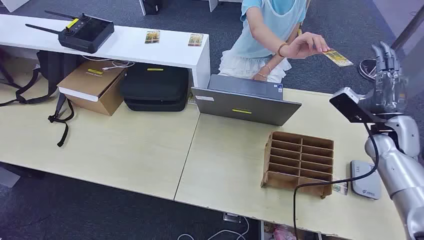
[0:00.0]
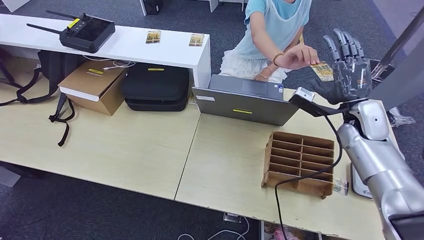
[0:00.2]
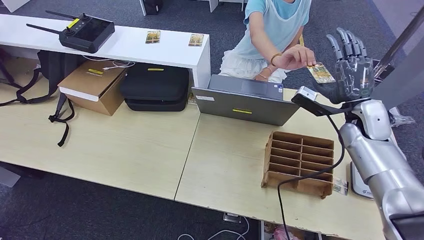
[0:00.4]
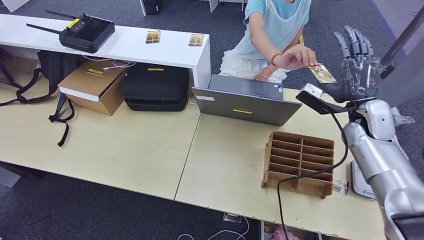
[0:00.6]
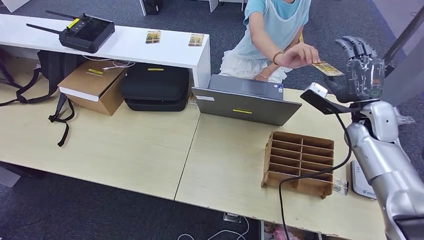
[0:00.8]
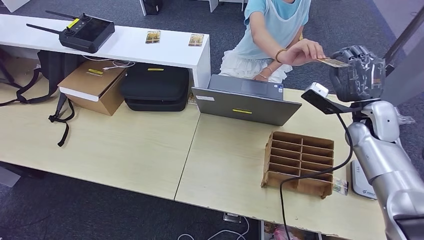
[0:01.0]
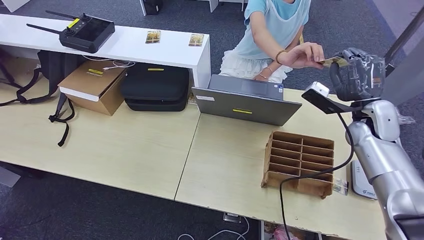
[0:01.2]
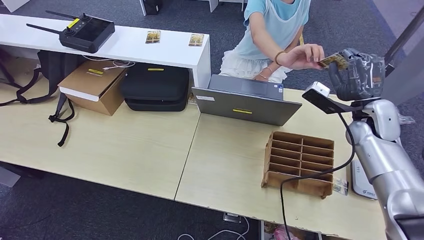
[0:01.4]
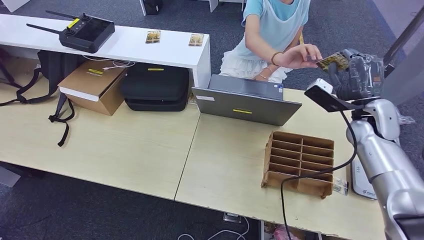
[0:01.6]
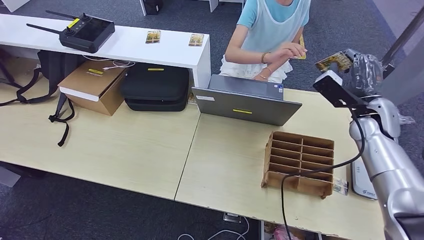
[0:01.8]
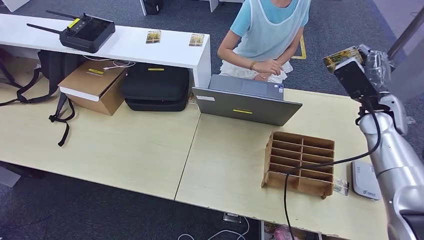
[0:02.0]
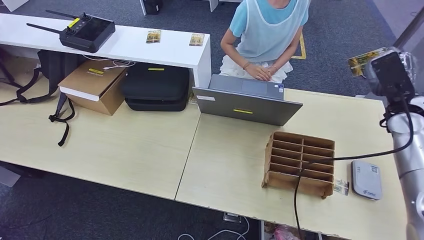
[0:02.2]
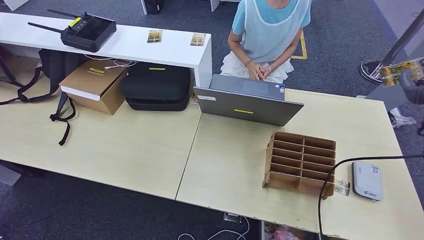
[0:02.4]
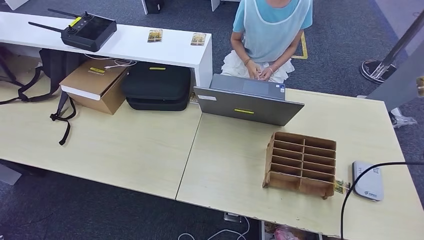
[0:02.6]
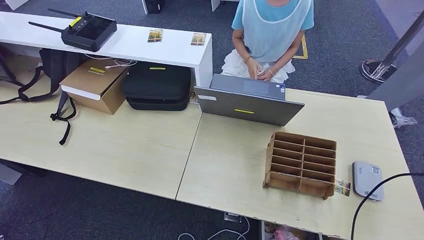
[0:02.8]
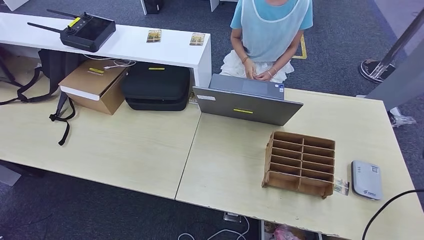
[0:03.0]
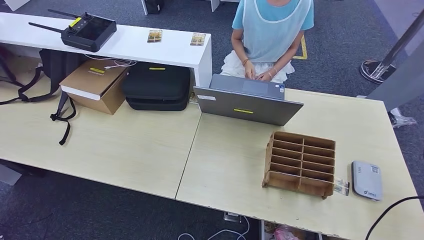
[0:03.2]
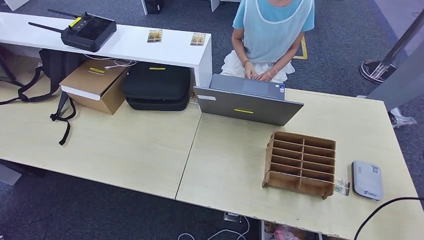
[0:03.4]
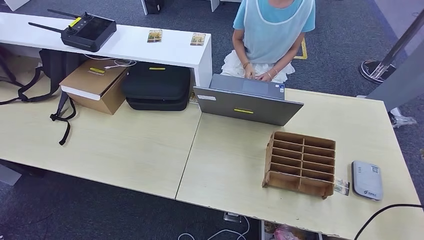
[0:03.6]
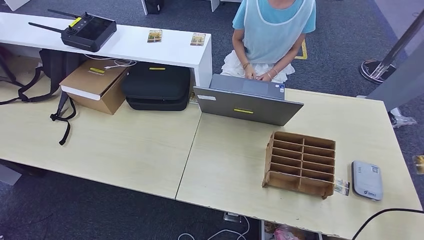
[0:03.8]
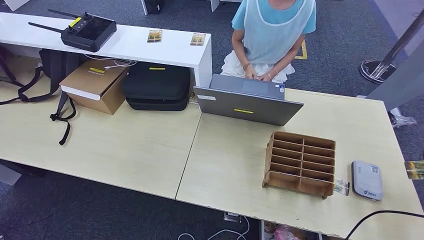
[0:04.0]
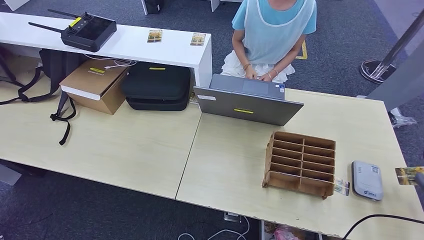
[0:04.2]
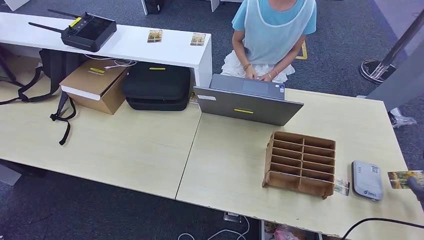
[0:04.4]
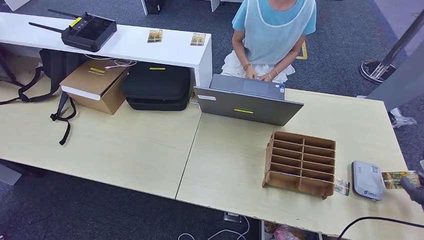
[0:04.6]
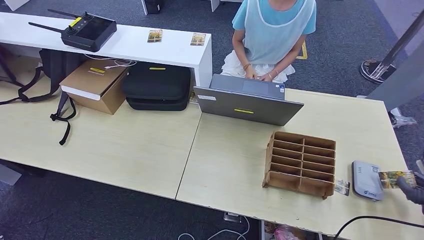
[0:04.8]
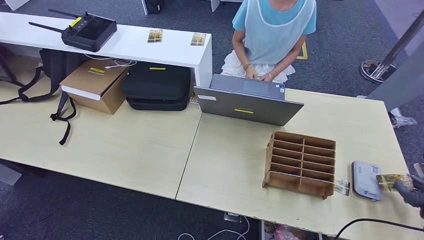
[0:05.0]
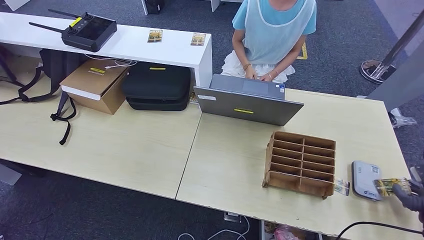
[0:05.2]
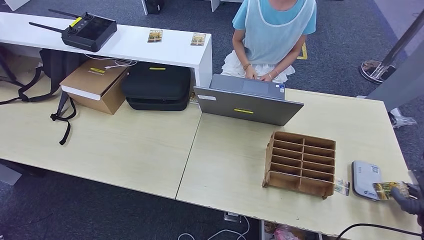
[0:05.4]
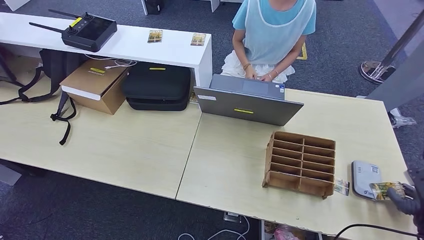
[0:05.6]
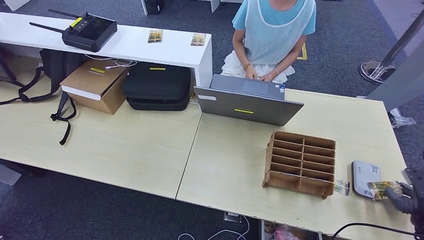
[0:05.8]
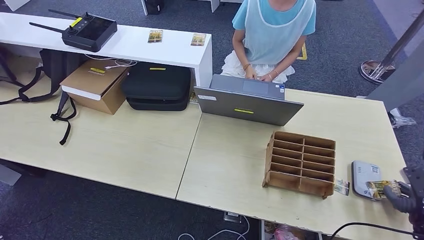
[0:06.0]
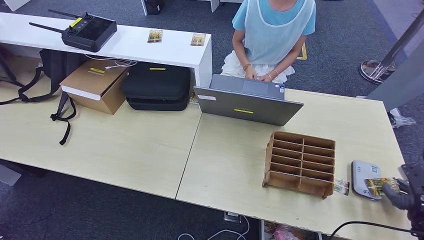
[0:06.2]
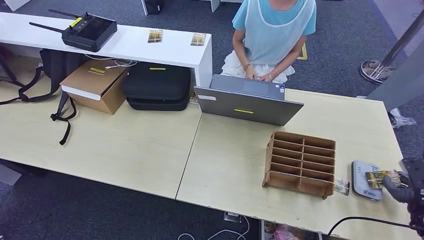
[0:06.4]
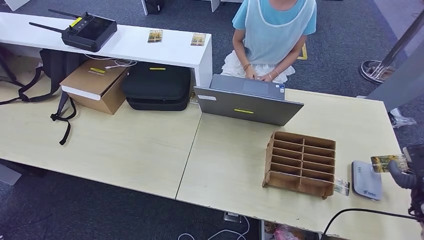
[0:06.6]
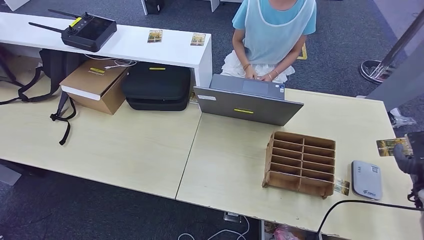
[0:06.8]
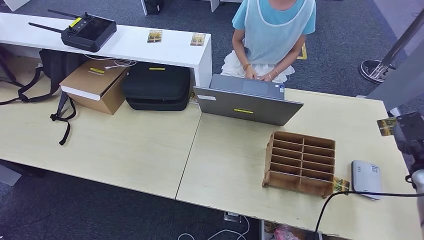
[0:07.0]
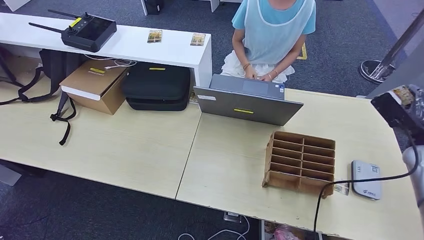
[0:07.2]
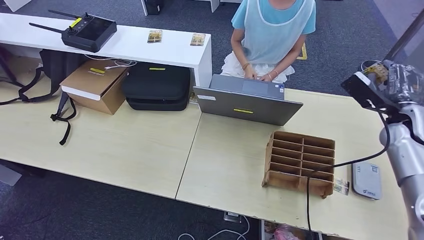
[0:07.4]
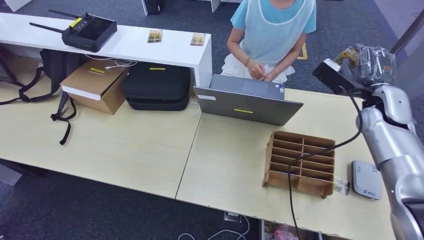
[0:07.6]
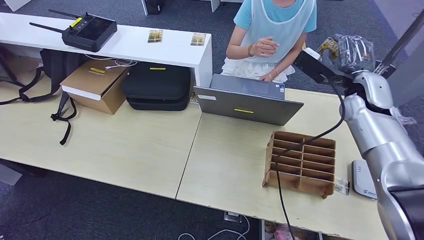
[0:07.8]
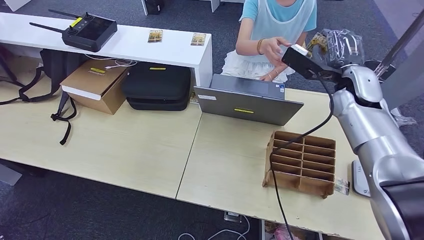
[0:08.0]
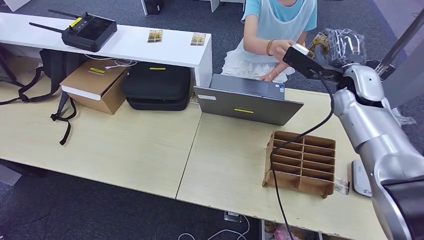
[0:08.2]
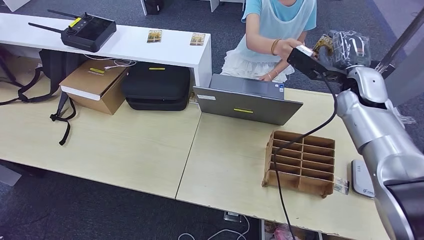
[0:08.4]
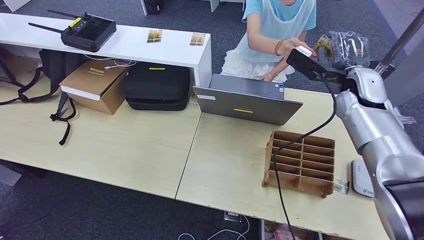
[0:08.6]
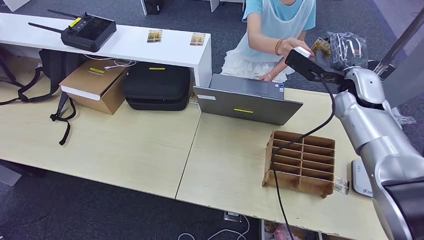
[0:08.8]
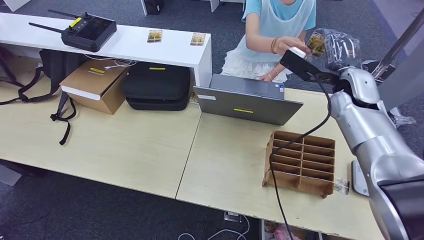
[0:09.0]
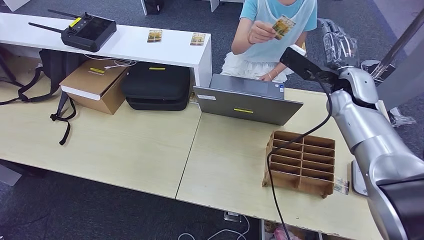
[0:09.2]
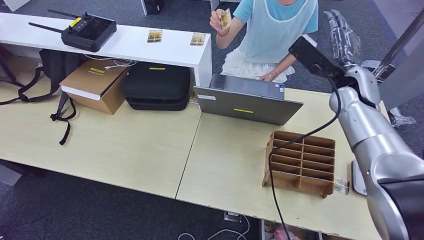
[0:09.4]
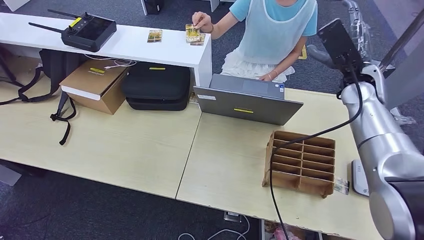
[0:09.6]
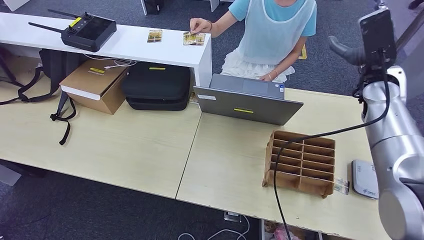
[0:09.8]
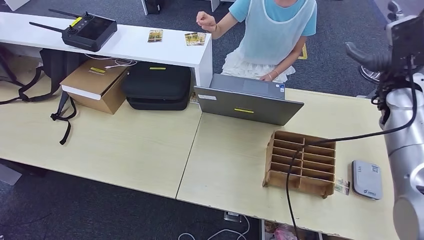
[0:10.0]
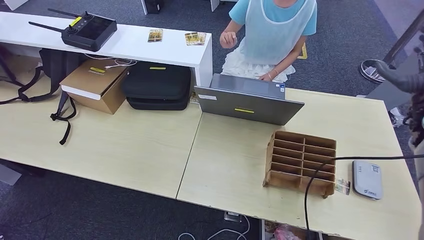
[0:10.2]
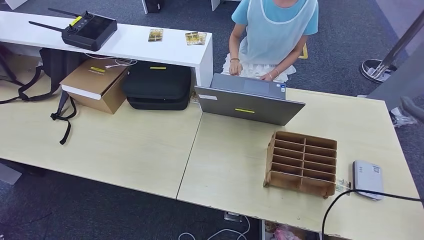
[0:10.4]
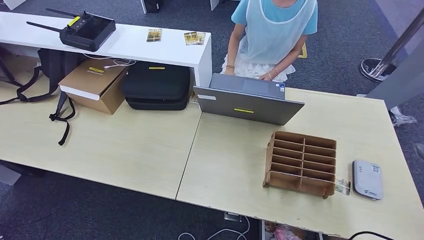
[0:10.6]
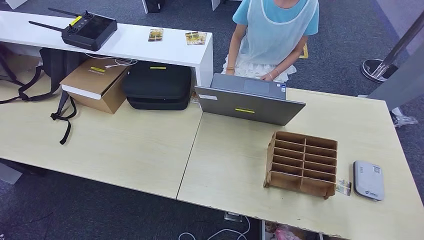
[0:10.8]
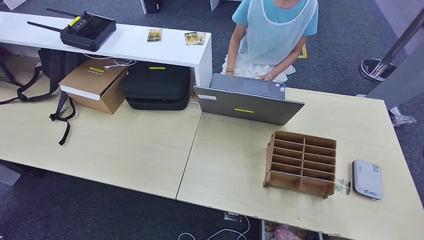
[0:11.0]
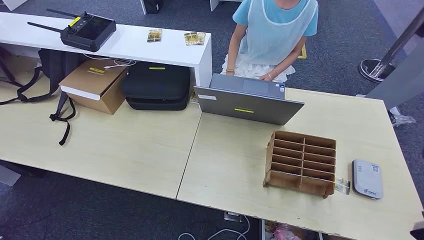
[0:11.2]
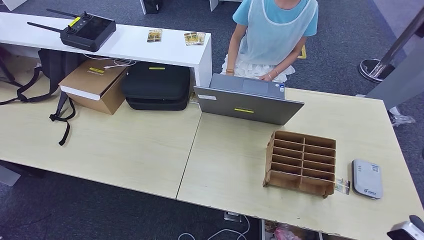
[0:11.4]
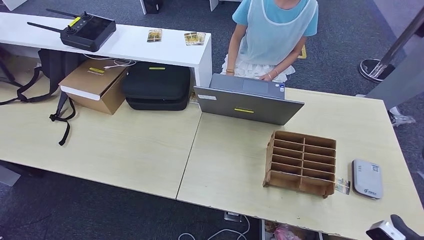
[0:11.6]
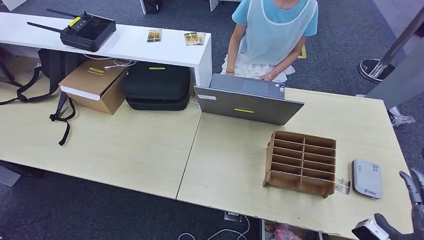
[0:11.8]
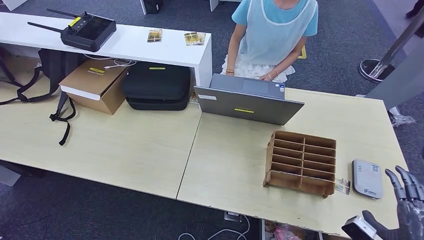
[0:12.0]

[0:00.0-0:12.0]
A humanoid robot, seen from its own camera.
Step, 0:00.0 to 0:01.8: Take the ID card from the person's hand.
Step, 0:02.0 to 0:05.6: Place the ID card on the card reader.
Step, 0:06.0 to 0:09.4: Hand the ID card to the person.
0:01.6 to 0:03.0: The right hand shifts roughly 30 cm to the right and backward.
0:03.0 to 0:04.4: The right hand travels downward by approximately 15 cm.
0:04.4 to 0:06.0: The right hand shifts by approximately 5 cm.
0:06.0 to 0:07.6: The right hand goes approximately 35 cm upward, forward and to the left.
0:07.6 to 0:09.0: The right hand is displaced to the left by some 10 cm.
0:09.0 to 0:10.4: The right hand moves to the right and backward, roughly 25 cm.
0:10.4 to 0:12.0: The right hand shifts approximately 25 cm backward and downward.

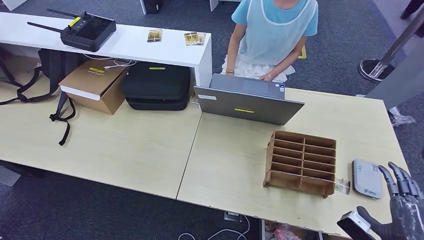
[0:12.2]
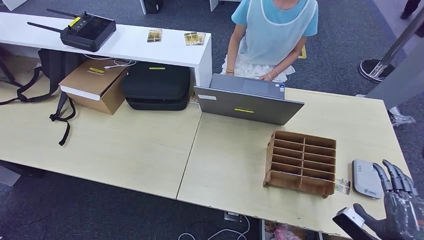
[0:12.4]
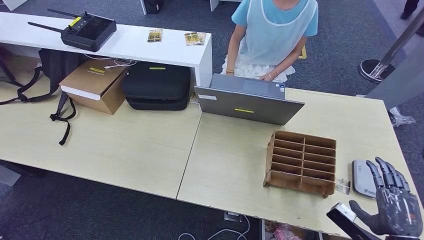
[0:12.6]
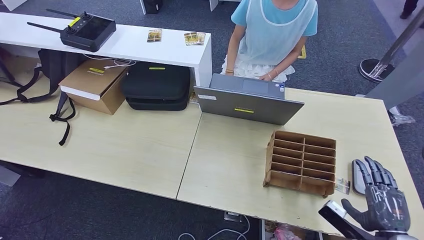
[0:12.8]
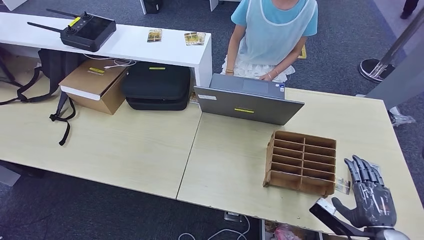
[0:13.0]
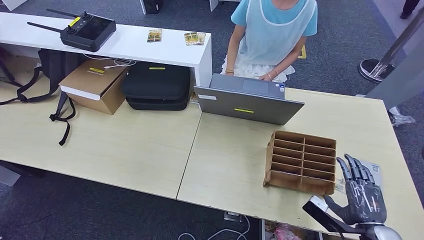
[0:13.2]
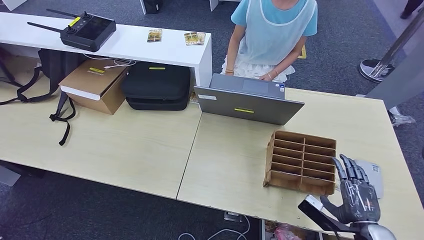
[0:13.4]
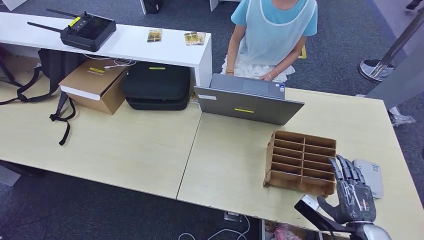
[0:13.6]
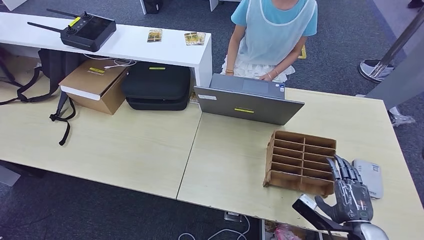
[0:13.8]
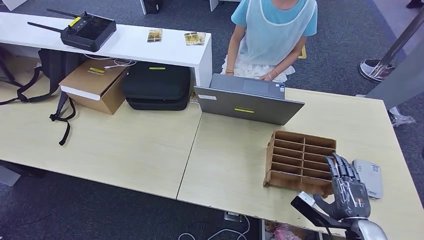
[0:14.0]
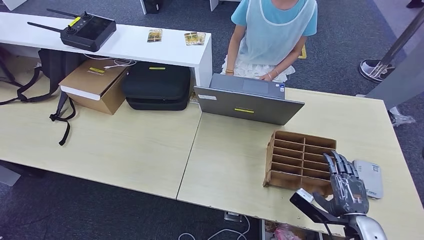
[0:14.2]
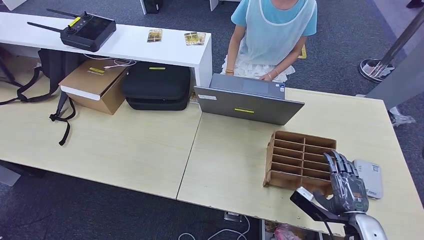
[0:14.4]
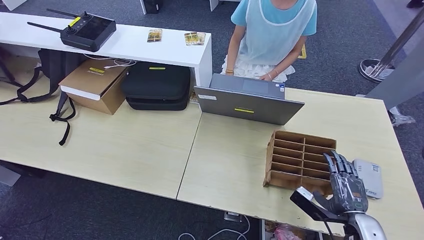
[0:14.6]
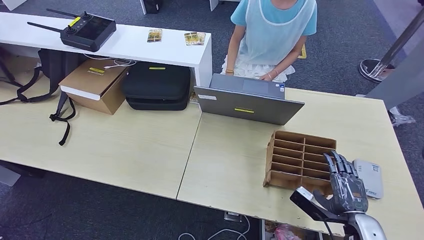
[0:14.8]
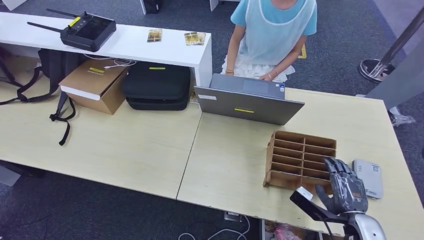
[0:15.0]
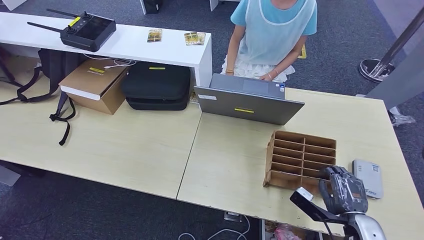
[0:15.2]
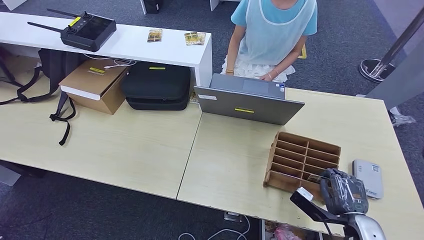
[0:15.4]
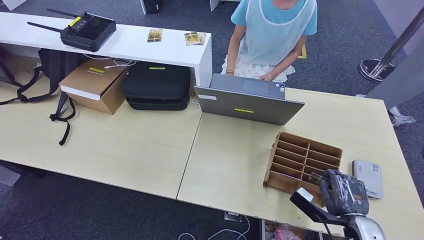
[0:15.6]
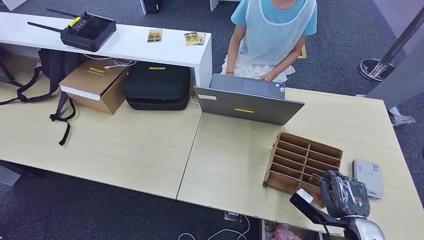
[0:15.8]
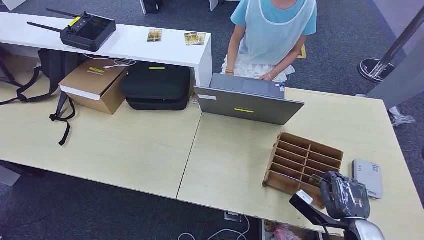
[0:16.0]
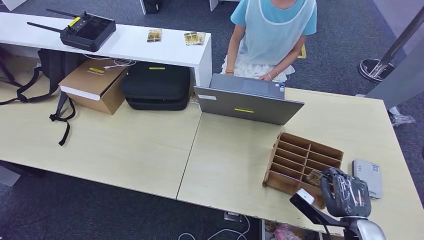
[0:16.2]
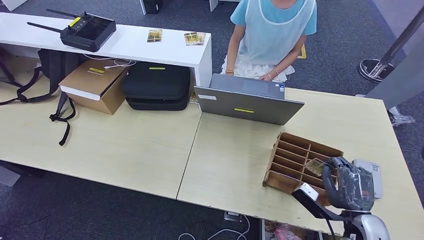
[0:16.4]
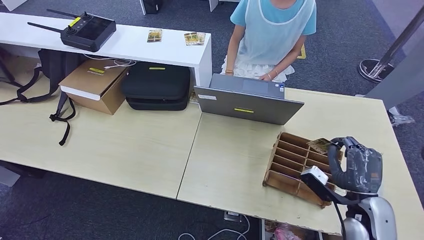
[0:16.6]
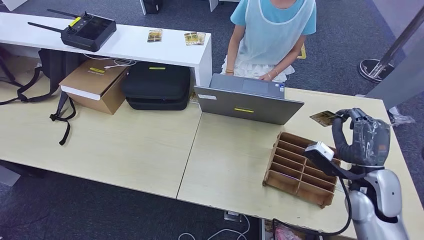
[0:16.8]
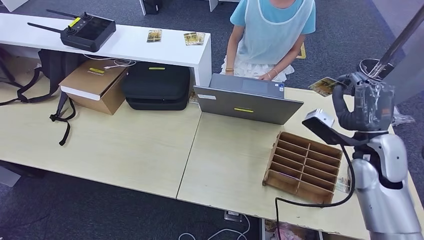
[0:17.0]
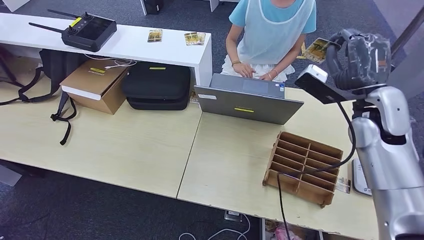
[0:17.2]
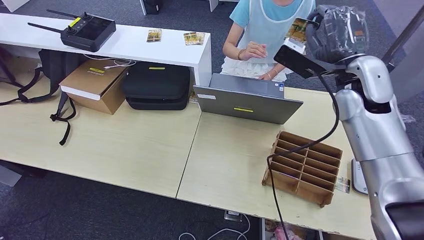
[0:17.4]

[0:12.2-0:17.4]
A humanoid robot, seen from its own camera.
Step, 0:12.2 to 0:16.6: Pick up the room key from the key card box.
0:12.2 to 0:14.0: The right hand moves to the left and forward, about 10 cm.
0:14.0 to 0:15.6: Both hands stay put.
0:15.6 to 0:17.4: The right hand heads upward and forward, covering approximately 35 cm.
